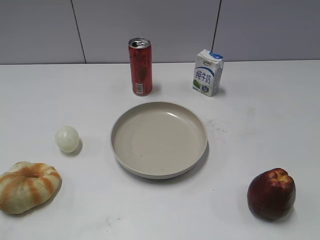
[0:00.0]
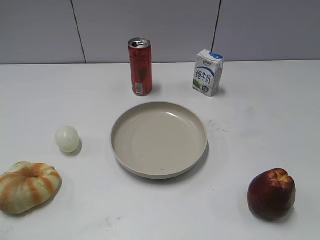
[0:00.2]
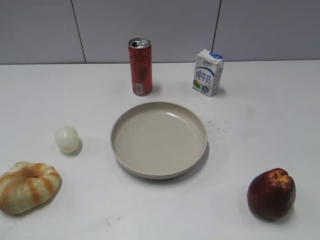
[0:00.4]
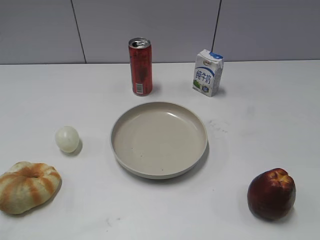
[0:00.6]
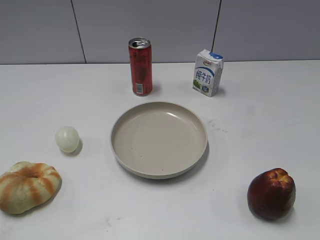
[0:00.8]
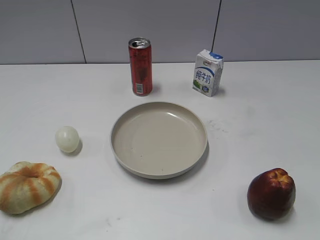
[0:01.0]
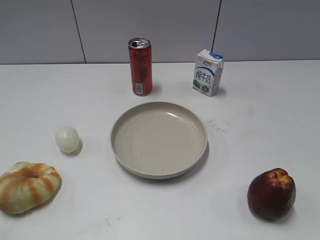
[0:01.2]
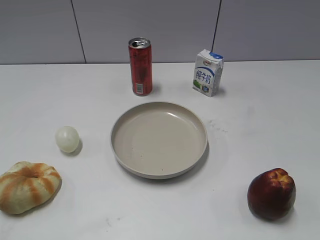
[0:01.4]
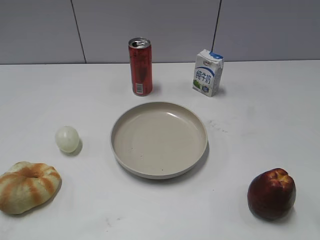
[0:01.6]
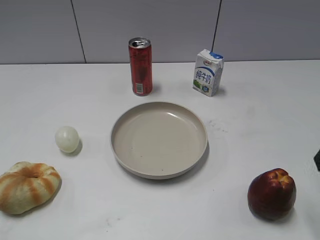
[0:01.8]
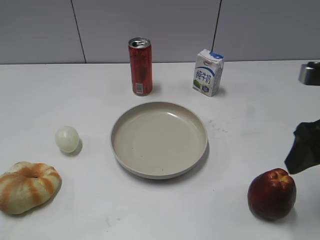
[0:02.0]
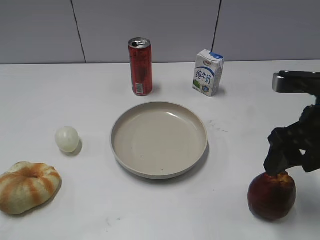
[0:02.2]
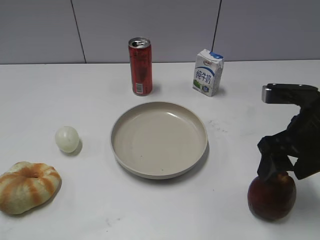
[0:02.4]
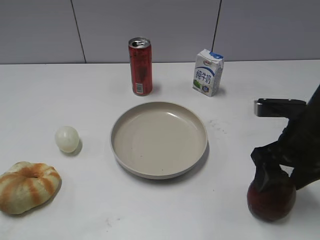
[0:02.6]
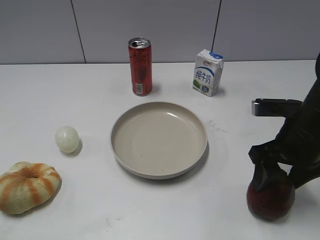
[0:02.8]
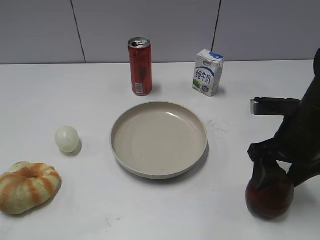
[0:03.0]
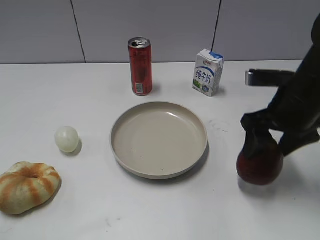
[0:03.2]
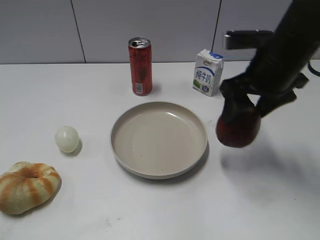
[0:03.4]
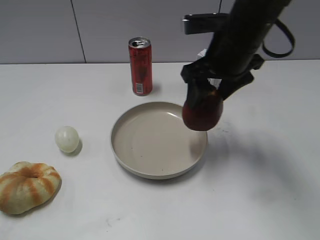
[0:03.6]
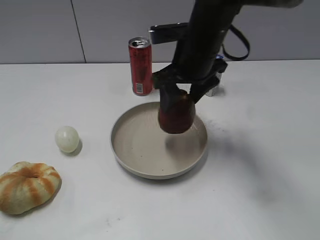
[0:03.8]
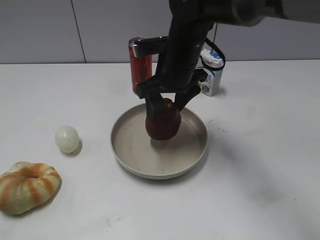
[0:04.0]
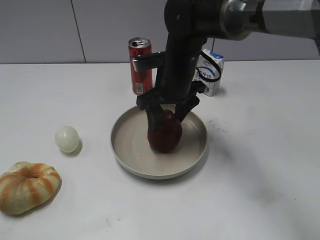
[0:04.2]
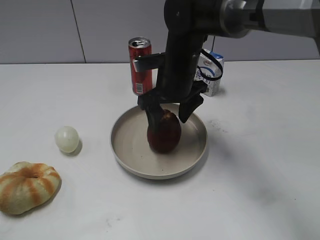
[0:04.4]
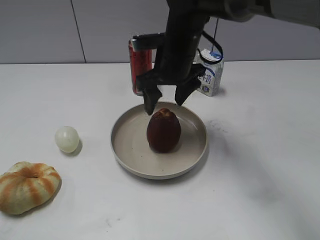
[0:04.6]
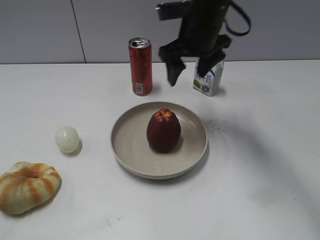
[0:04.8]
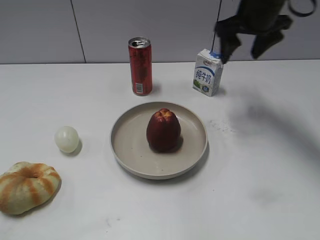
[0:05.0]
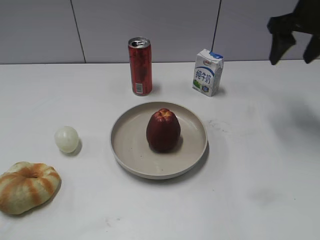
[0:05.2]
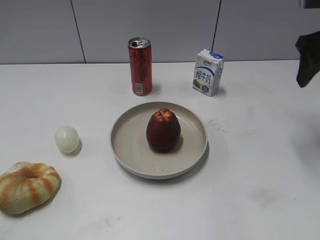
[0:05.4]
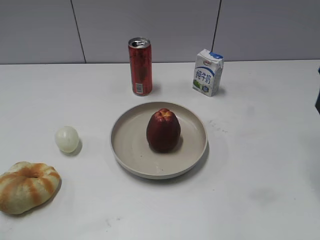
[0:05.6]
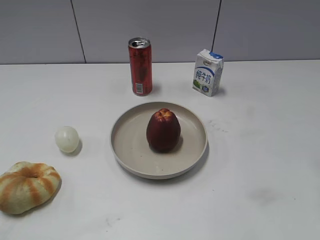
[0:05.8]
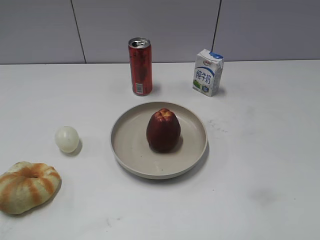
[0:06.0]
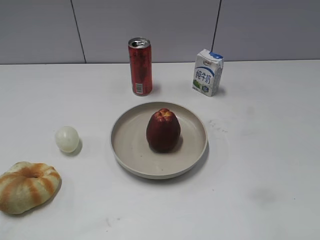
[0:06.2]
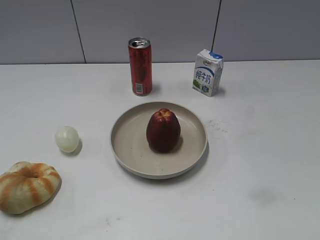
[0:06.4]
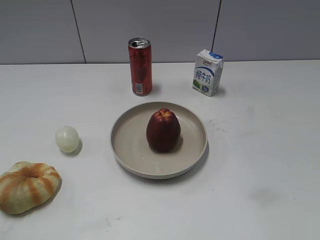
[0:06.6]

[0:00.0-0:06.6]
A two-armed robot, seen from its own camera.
Step, 0:01.8 to 0:02.8: Grasp the apple with right gripper.
Step, 0:03.0 to 0:04.4: Place the apple on the plate with right gripper.
0:01.6 to 0:03.2: The right gripper shifts about 15 cm forward, downward and to the left.
0:03.2 to 0:05.0: The right gripper goes approximately 15 cm forward and upward, and travels to the left and back again, some 15 cm each way.
0:05.0 to 0:06.6: The right gripper travels backward by roughly 40 cm.
